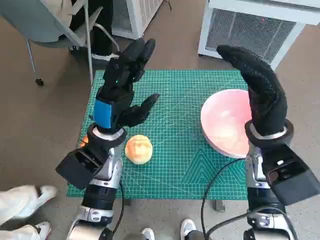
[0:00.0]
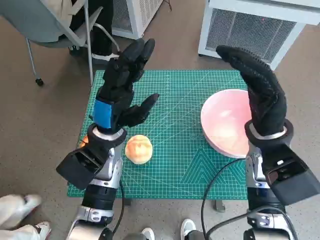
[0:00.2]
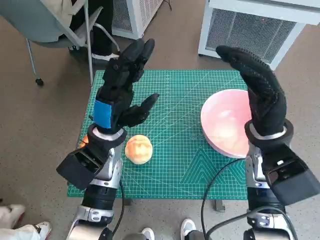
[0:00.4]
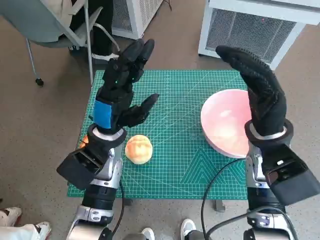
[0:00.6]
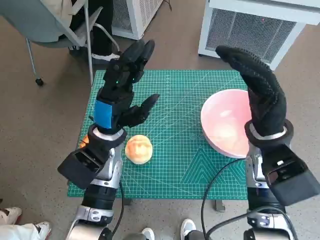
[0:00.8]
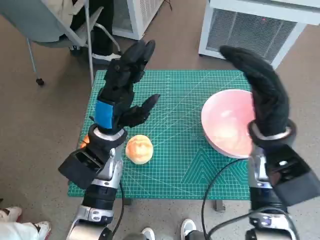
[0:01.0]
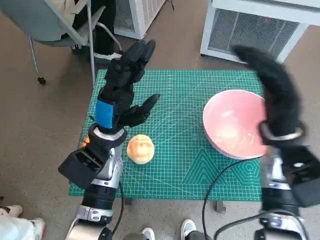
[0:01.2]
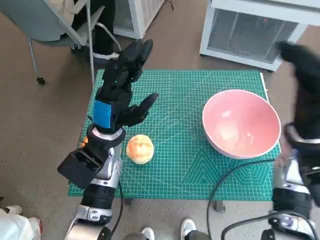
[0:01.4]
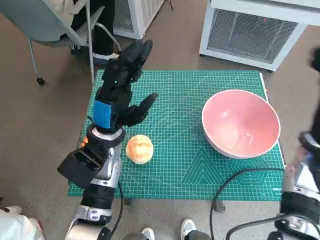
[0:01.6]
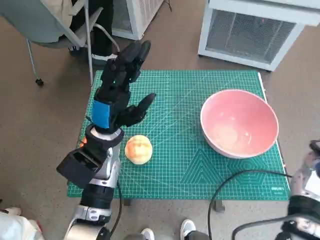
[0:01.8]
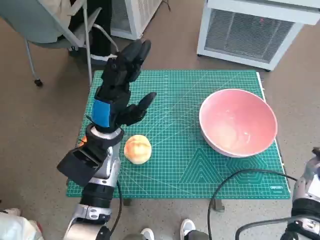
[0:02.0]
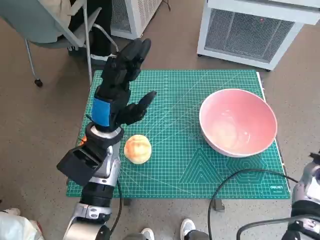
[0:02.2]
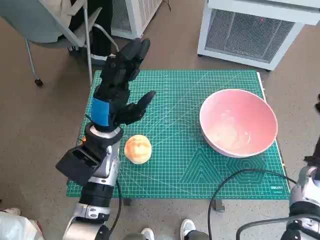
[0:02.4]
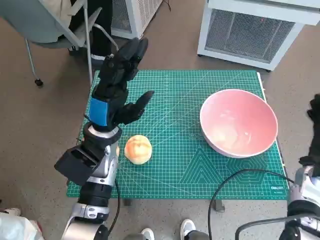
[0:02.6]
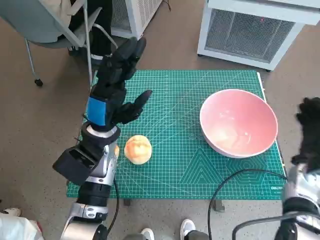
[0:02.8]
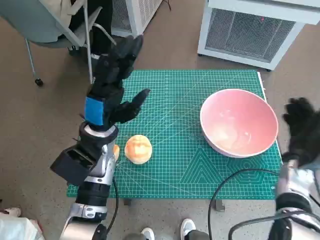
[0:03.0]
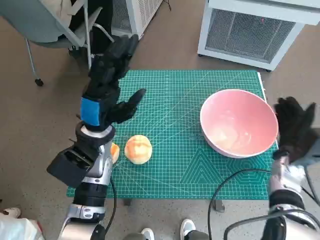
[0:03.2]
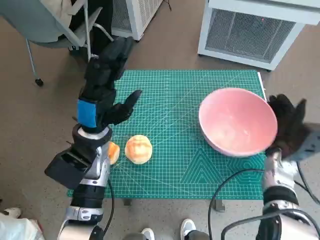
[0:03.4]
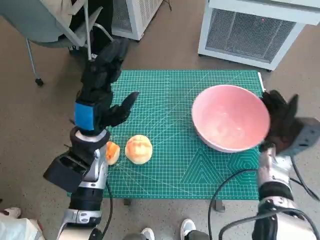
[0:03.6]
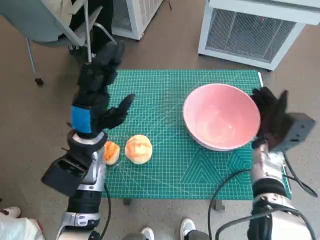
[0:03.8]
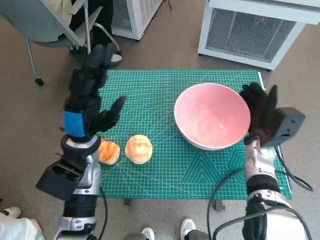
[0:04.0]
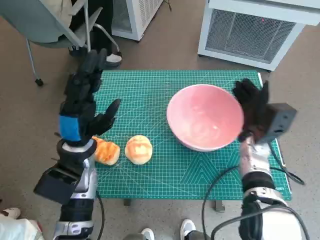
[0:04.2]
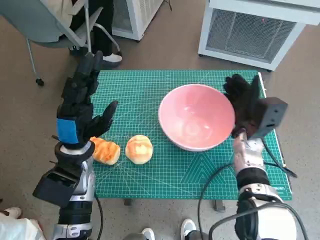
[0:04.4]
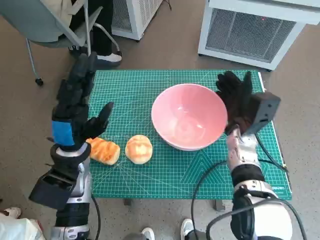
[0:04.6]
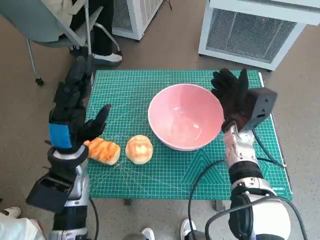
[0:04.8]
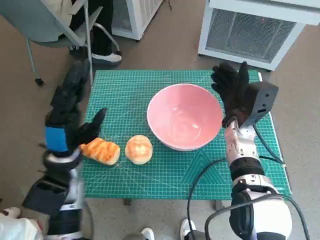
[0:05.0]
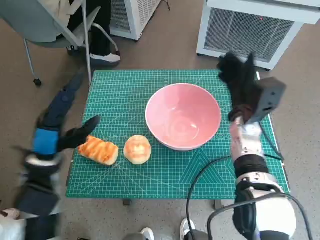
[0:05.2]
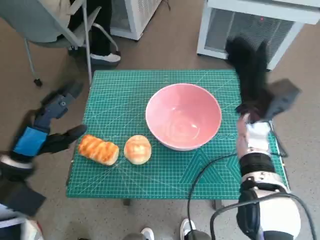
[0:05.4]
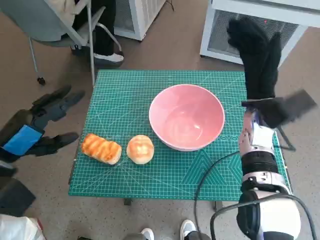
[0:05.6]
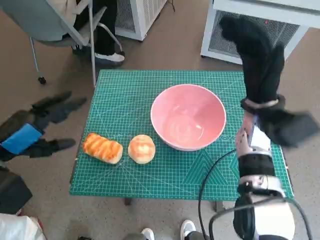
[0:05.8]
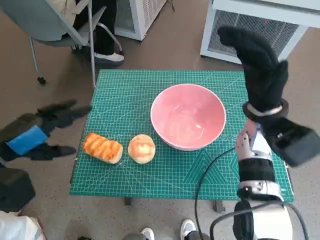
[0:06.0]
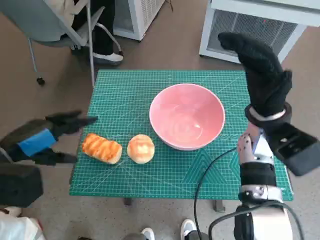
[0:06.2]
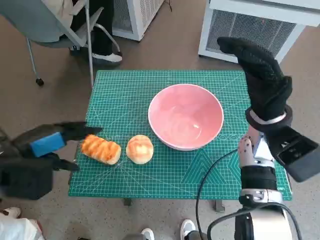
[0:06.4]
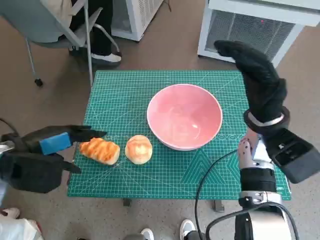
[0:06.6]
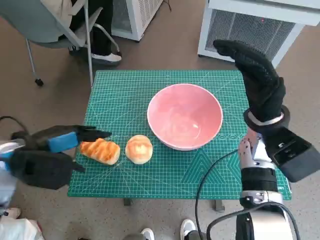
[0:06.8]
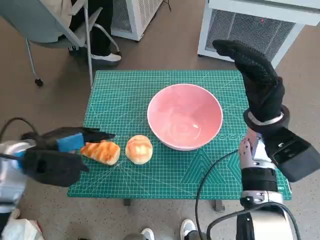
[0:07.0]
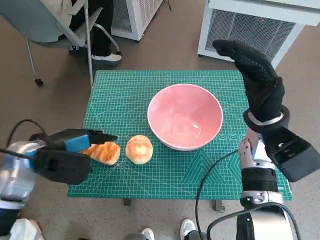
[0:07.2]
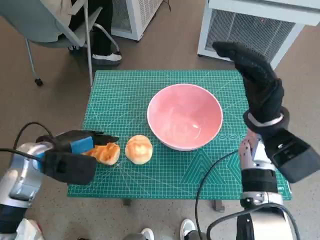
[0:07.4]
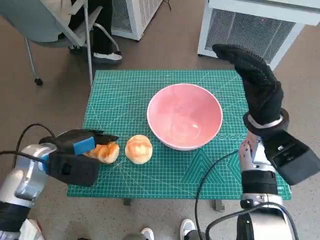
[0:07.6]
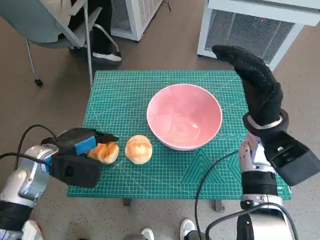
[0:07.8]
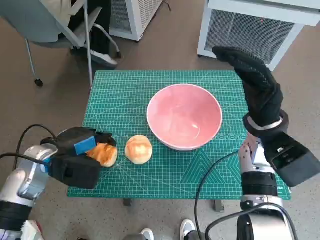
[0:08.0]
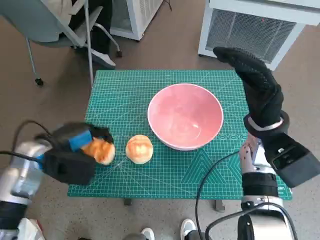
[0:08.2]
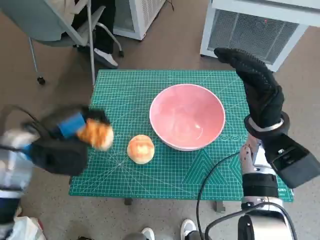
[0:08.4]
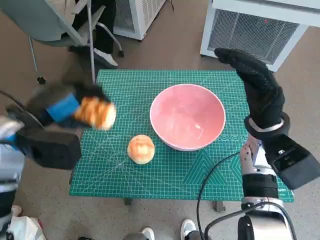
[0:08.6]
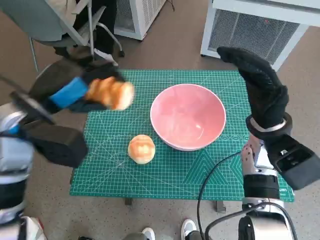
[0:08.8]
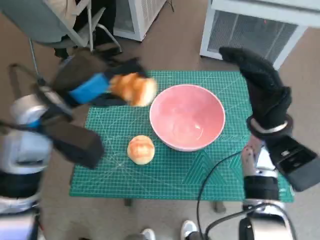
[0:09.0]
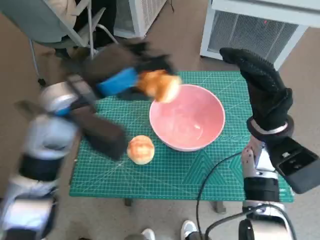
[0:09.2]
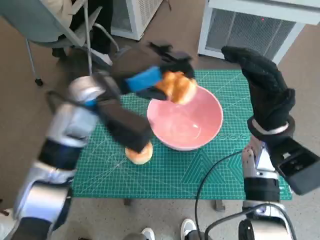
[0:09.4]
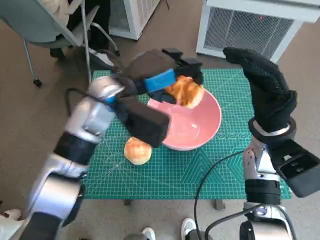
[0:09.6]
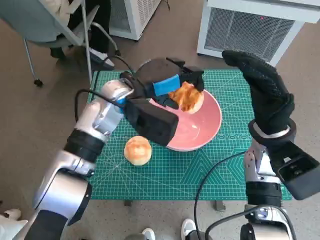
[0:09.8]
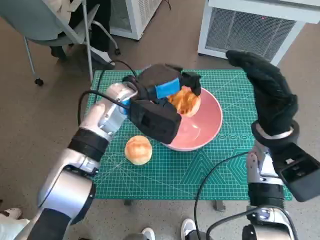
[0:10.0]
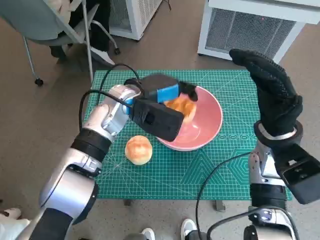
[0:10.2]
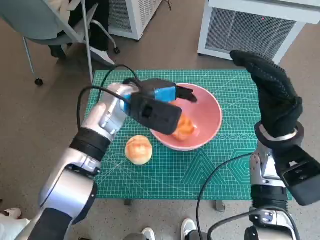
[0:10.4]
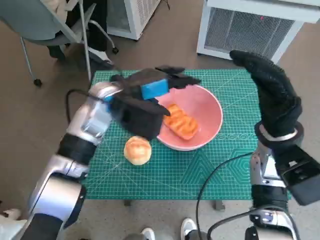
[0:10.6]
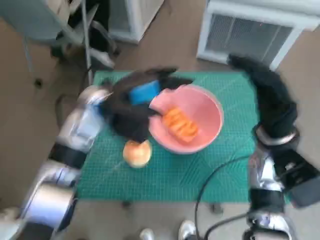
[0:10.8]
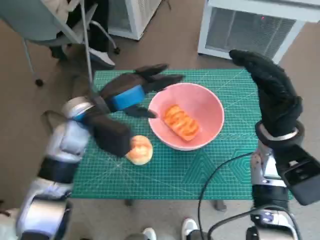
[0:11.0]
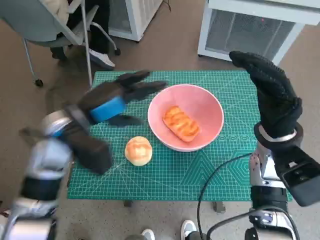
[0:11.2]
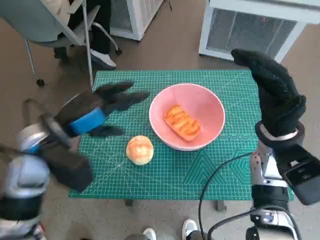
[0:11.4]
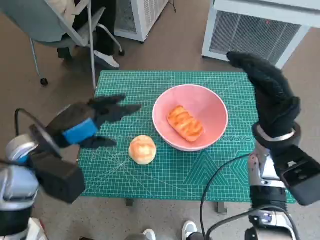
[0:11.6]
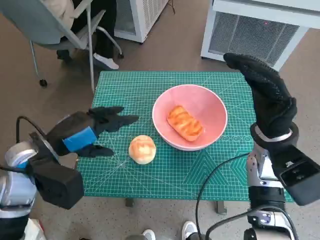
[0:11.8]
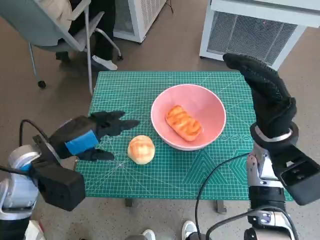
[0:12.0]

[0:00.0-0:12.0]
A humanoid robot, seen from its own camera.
Task of the whole recording: Push the bowl to the center of the table and put the bread into the bowl.
Step, 0:00.0 to 0:05.2: Move the pink bowl to the center of table with right hand.
Step, 0:05.4 to 0:07.8: Grasp the long bread with left hand.
Step, 0:08.0 to 0:10.4: Place the long bread in pink bowl with left hand.
0:01.6 to 0:03.0: The right hand goes approximately 10 cm downward.
0:03.0 to 0:04.4: The right hand moves to the left, roughly 10 cm; the left hand moves roughly 5 cm.
0:04.4 to 0:06.0: The right hand travels upward by about 10 cm, while the left hand shifts some 15 cm to the left, upward and backward.
0:06.0 to 0:07.6: The left hand shifts approximately 10 cm downward and forward.
0:07.6 to 0:09.0: The left hand shifts some 15 cm upward and to the right.
0:09.0 to 0:10.4: The left hand heads to the right, forward and downward, covering roughly 15 cm.
0:10.4 to 0:12.0: The left hand moves to the left and backward, roughly 20 cm.

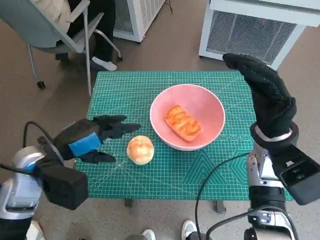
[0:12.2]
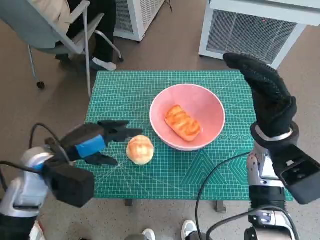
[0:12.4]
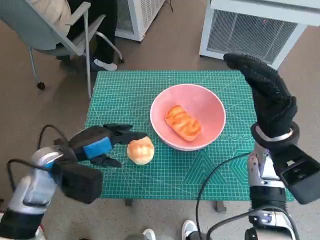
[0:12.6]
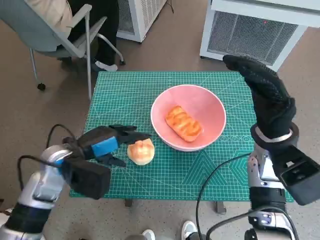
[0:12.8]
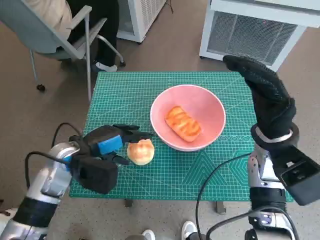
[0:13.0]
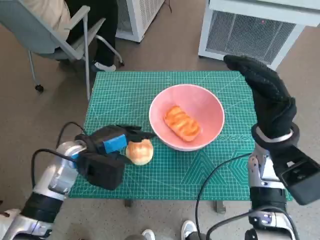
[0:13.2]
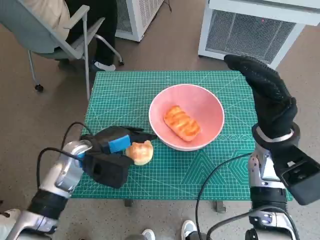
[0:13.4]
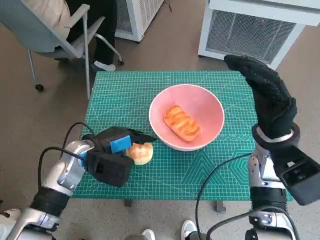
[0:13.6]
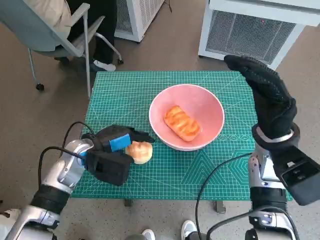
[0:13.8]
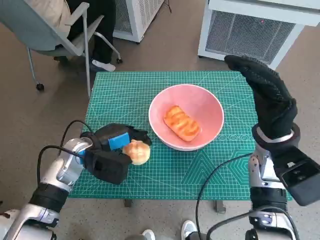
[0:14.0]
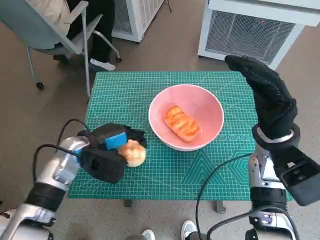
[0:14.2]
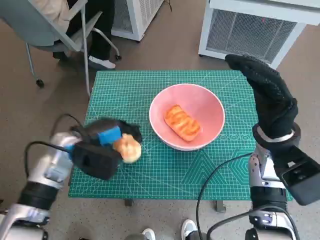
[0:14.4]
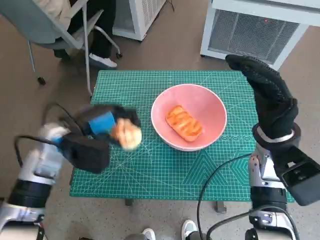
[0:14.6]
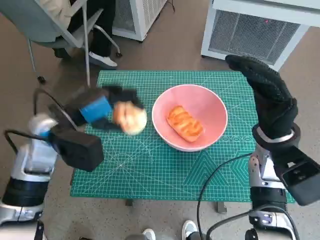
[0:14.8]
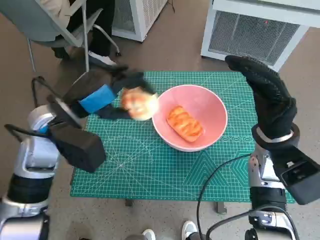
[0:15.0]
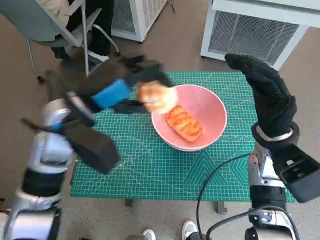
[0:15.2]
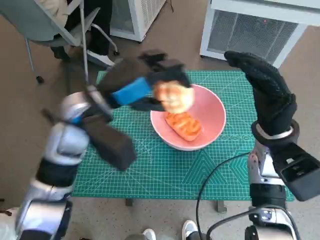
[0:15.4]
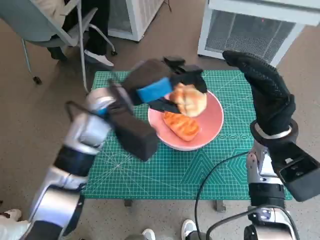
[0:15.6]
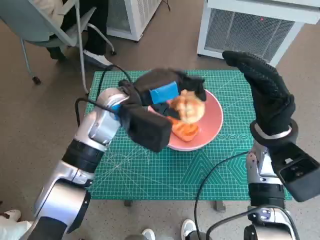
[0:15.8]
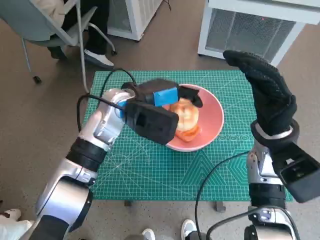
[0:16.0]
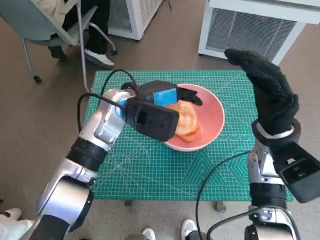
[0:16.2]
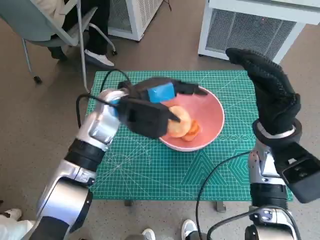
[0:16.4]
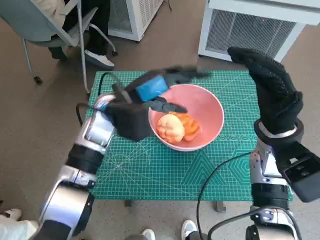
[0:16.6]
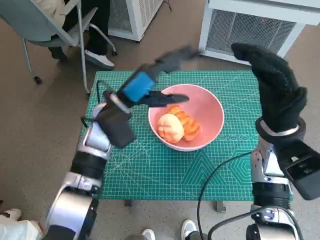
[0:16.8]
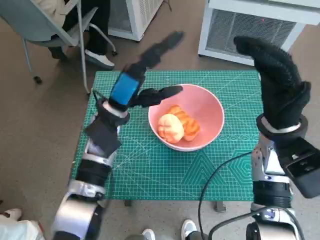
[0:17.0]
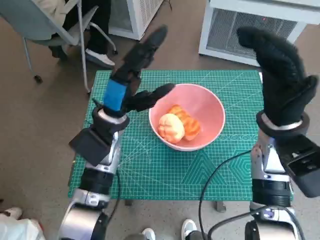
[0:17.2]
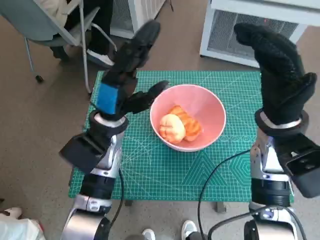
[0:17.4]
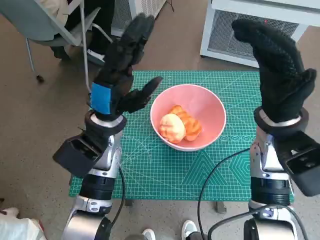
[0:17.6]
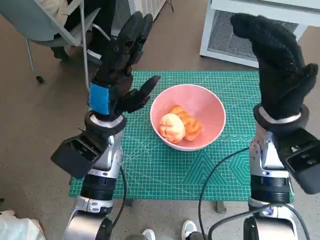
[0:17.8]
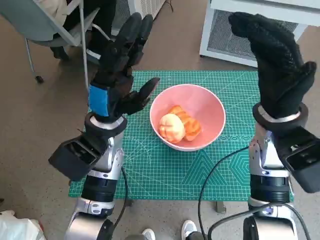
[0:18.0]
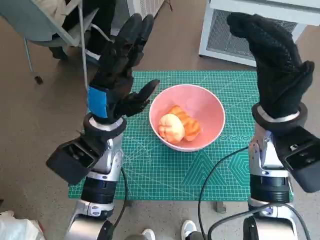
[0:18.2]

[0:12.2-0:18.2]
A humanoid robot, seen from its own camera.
Task of the whole recording: Push the bowl to the center of the table and put the bread into the bowl.
Step, 0:12.2 to 0:14.0: Grasp the round bread with left hand.
Step, 0:14.2 to 0:16.4: Place the round bread in pink bowl with left hand.
0:12.2 to 0:13.8: The left hand is displaced downward and forward by about 10 cm.
0:13.8 to 0:15.2: The left hand heads upward, covering roughly 15 cm.
0:15.2 to 0:16.6: The left hand shifts about 10 cm forward and to the right.
0:16.6 to 0:18.2: The left hand goes some 5 cm backward.

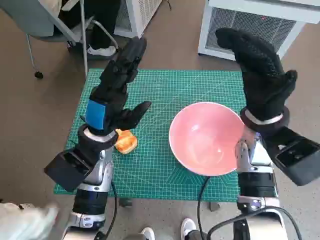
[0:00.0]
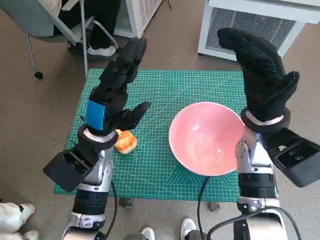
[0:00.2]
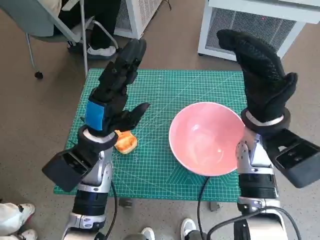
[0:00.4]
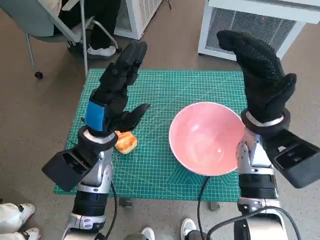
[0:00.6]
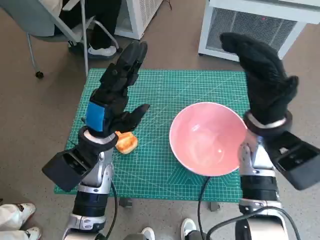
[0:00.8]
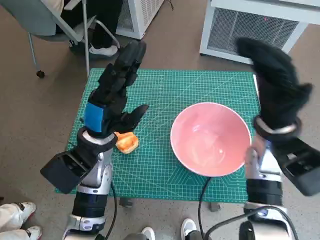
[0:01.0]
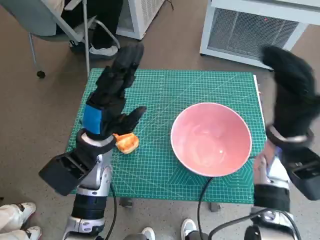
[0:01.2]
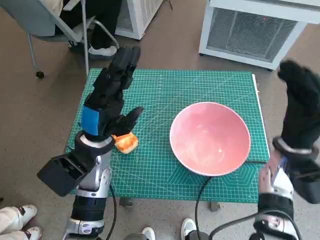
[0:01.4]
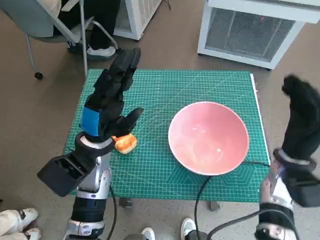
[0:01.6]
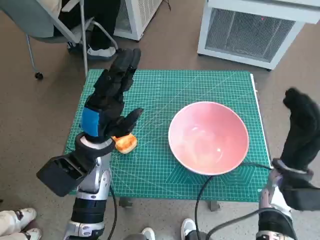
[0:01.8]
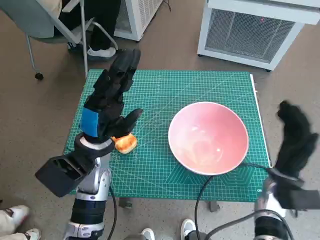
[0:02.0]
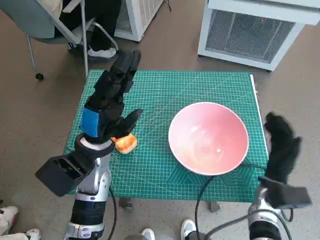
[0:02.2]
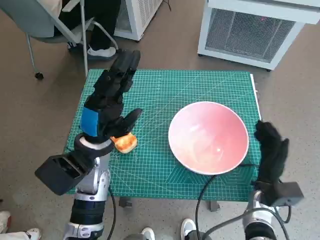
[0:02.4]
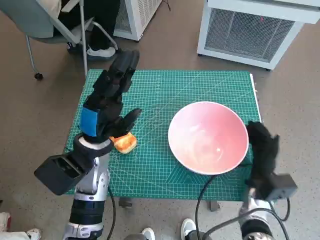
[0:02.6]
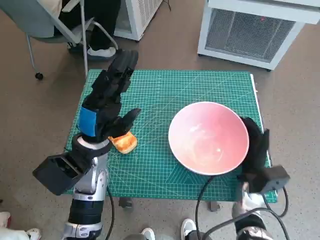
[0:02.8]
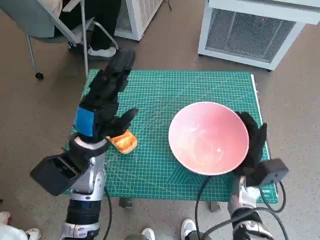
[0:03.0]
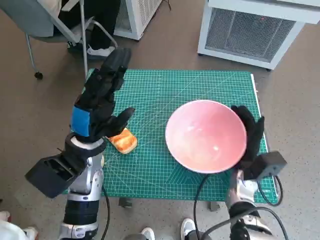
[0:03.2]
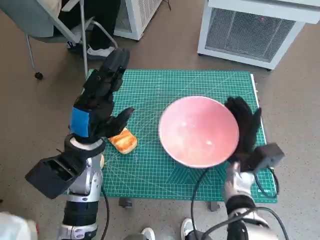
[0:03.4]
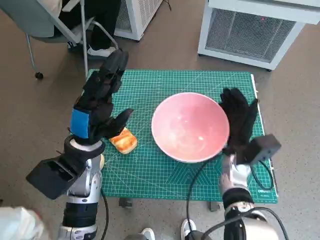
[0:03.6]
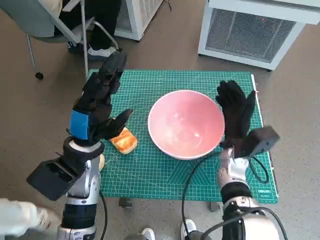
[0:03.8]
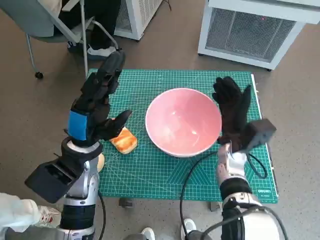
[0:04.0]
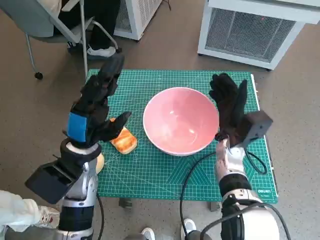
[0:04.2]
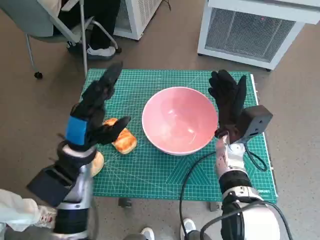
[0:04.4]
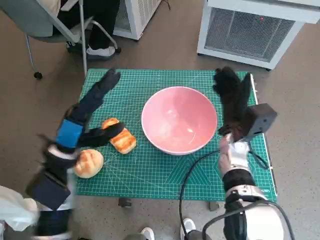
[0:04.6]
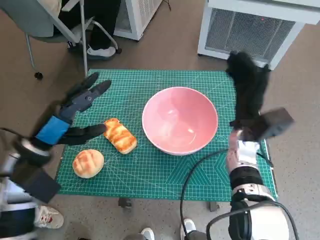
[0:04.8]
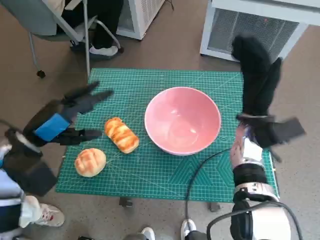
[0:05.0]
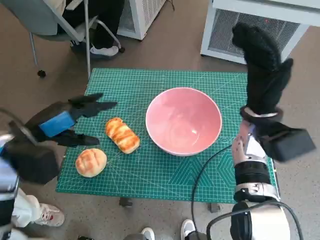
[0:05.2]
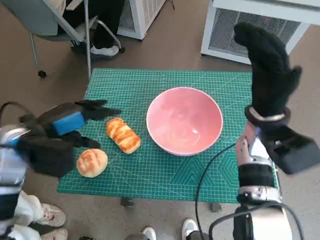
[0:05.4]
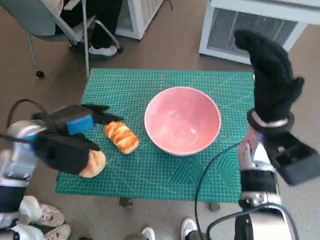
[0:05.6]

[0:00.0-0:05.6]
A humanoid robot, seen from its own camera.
Task of the whole recording: Push the bowl to the center of the table and put the bread into the bowl.
Step, 0:00.0 to 0:04.6: Move the pink bowl to the center of table with right hand.
0:01.4 to 0:02.8: The right hand goes some 15 cm downward.
0:02.8 to 0:04.2: The right hand moves upward, forward and to the left, about 10 cm.
0:04.2 to 0:05.6: The right hand is displaced upward by about 10 cm. The left hand is displaced to the left by roughly 10 cm.
